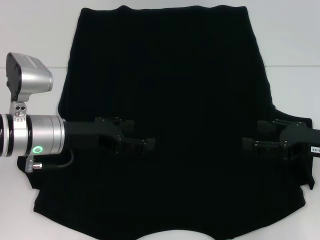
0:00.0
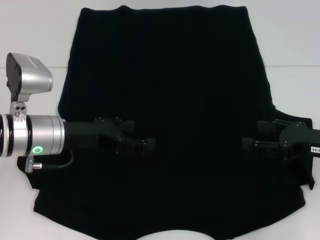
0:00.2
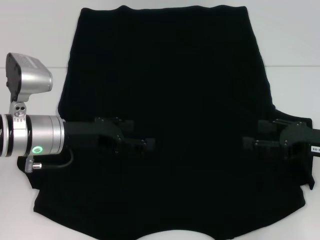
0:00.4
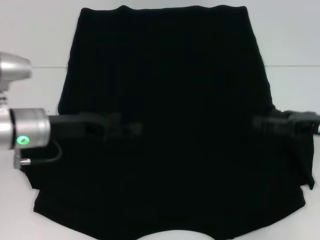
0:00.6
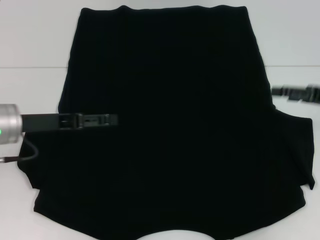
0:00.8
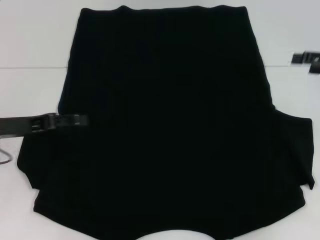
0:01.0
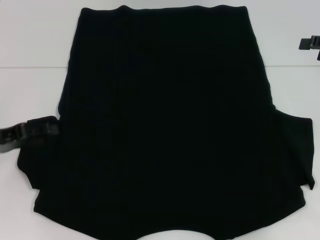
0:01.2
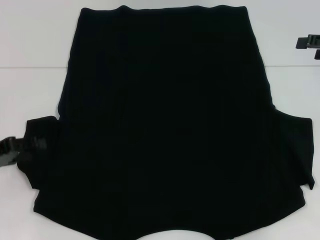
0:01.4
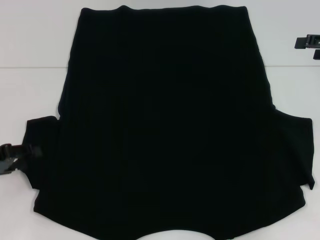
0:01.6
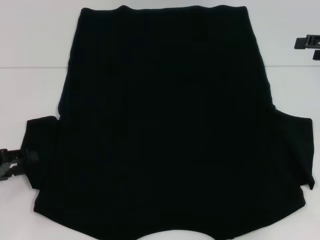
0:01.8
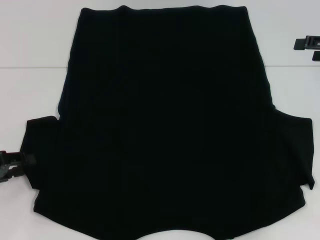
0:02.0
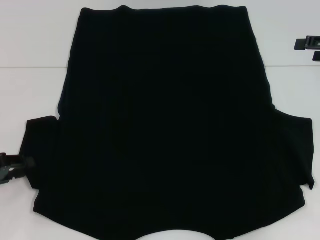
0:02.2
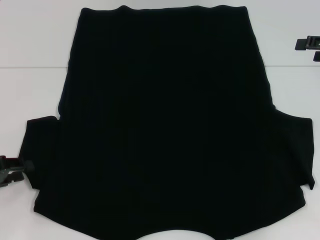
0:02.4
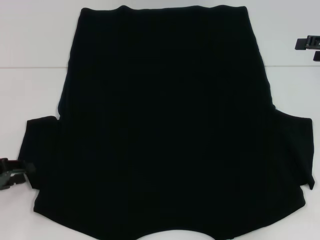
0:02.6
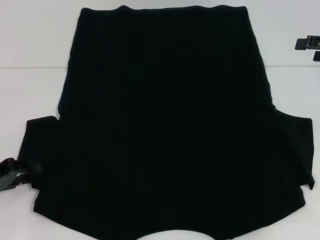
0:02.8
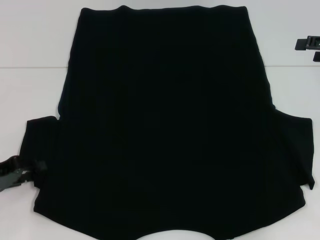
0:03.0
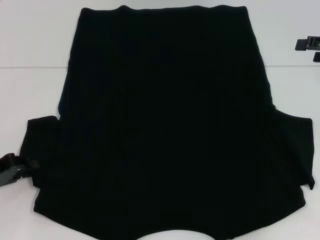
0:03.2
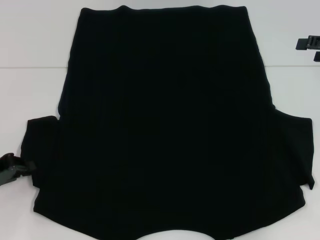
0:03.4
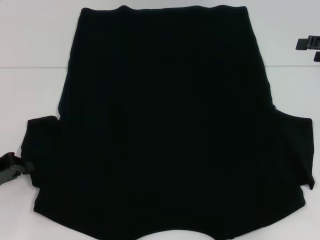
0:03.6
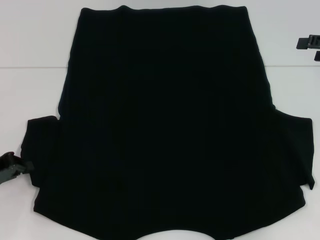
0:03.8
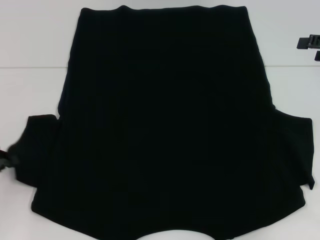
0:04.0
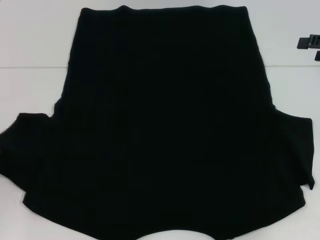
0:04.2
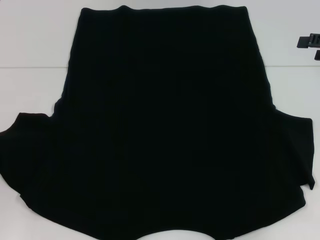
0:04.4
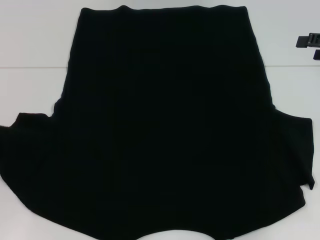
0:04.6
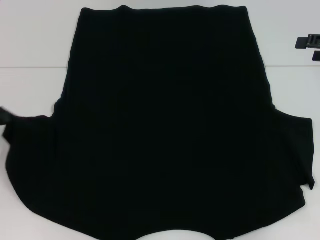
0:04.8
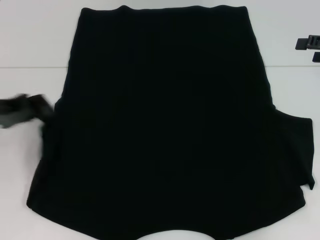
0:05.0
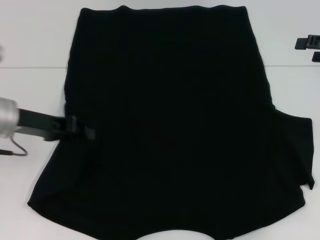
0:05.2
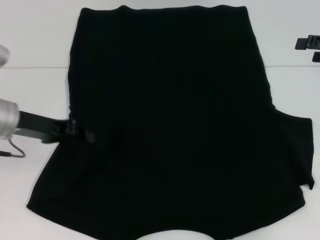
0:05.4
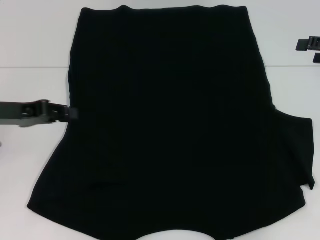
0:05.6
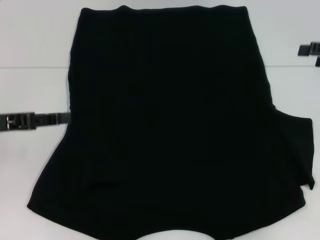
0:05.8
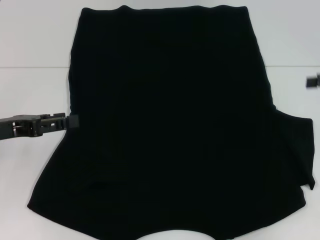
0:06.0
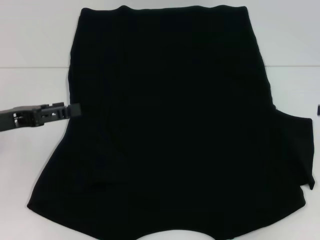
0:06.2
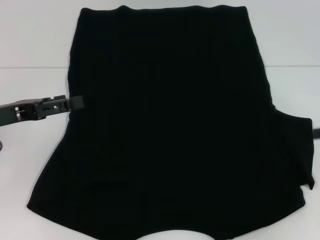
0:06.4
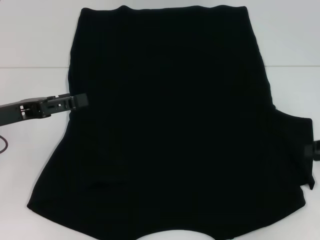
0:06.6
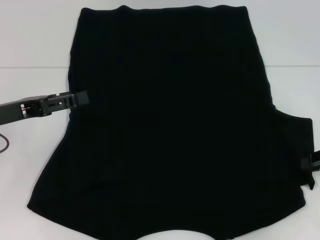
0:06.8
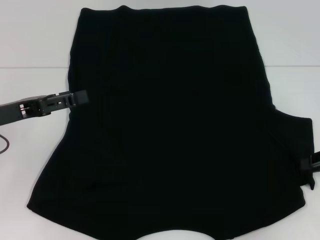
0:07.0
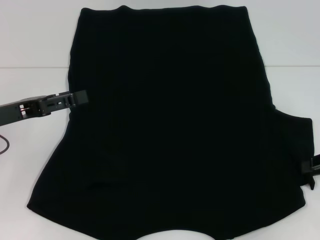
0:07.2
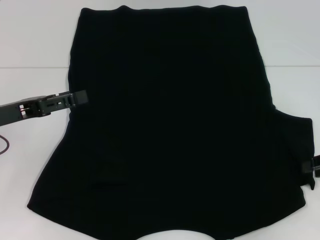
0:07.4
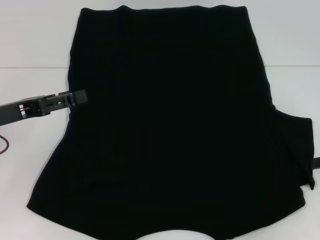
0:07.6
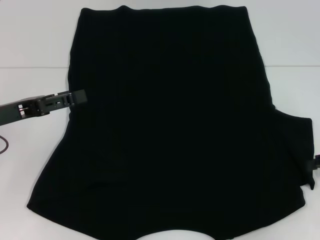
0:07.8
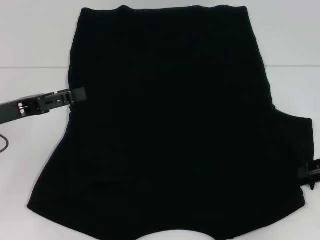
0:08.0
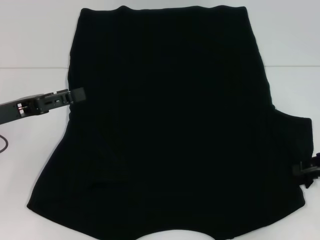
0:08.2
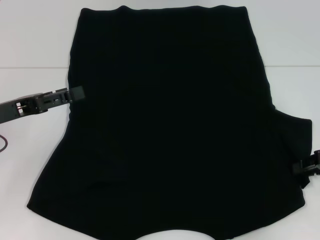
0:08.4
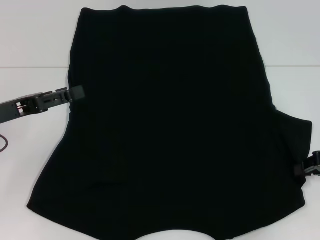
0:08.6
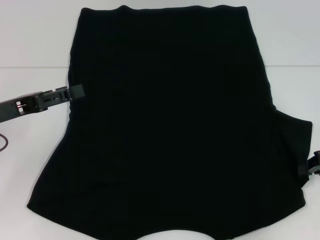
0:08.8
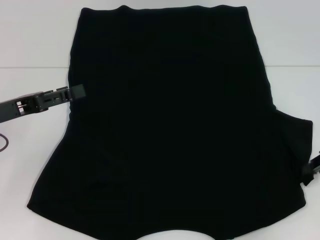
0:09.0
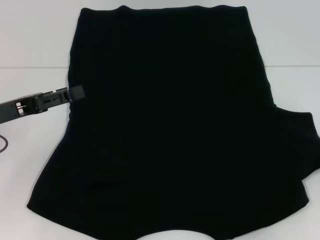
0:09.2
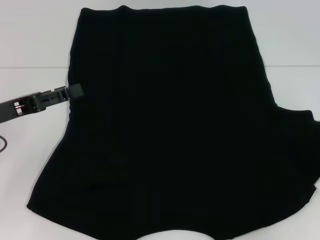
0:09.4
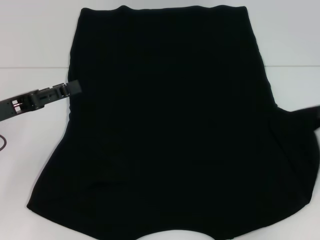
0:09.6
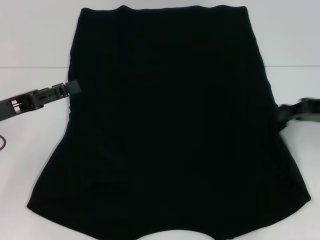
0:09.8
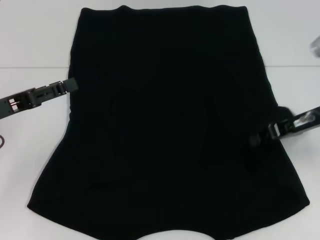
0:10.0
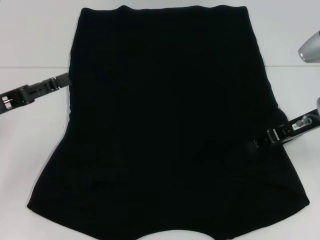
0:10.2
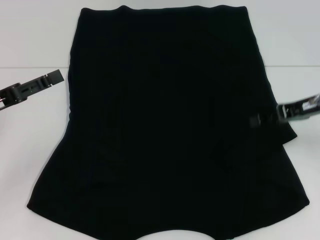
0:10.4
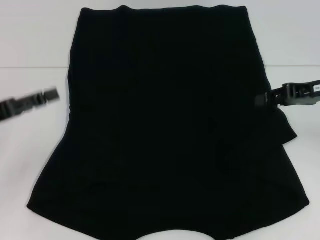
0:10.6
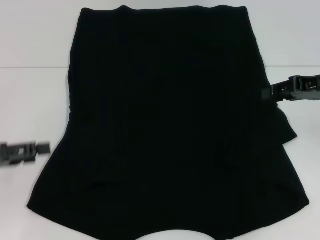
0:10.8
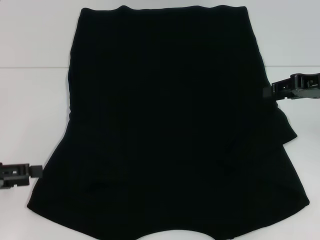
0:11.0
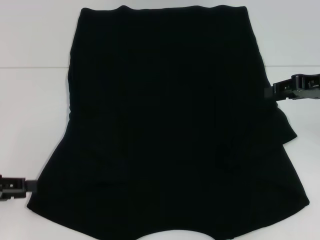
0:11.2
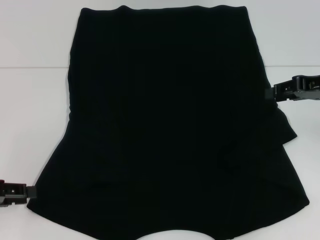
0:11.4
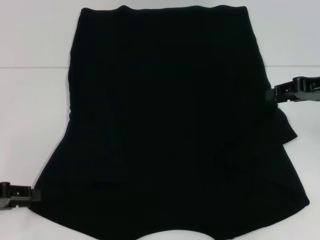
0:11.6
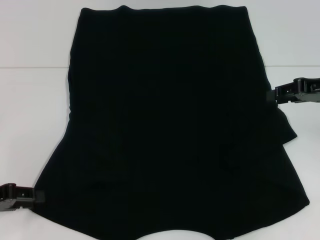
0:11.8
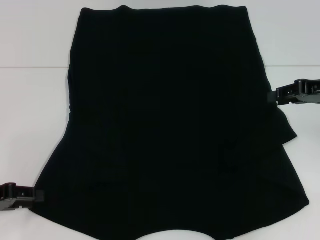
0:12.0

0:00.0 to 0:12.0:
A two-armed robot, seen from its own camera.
Step, 0:00.0 to 0:05.4: Fold the bottom left sleeve with your left hand.
Step, 0:05.6 to 0:10.2: Fold the bottom right sleeve with your right hand.
0:00.0 to 0:01.6: The left gripper heads to the left, covering some 15 cm; the right gripper travels upward, forward and to the right by some 15 cm.
0:01.6 to 0:03.0: The grippers stay close to where they were, moving slightly.
0:03.0 to 0:04.4: The left gripper travels to the left by about 5 cm, and closes up.
0:04.4 to 0:06.0: The left gripper goes some 10 cm to the right, and opens.
0:06.0 to 0:07.6: The right gripper travels downward and backward by roughly 10 cm, and closes; the left gripper opens up.
0:07.6 to 0:09.0: The right gripper closes up.
0:09.0 to 0:10.4: The right gripper shifts some 10 cm to the left, forward and upward.
0:10.4 to 0:12.0: The left gripper changes place by roughly 5 cm, and closes.

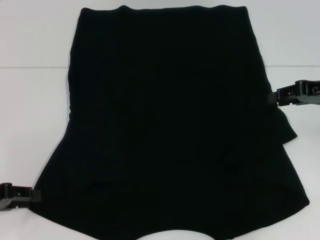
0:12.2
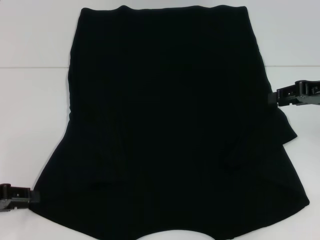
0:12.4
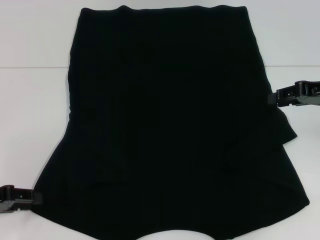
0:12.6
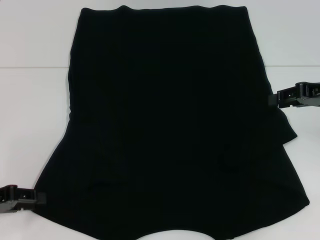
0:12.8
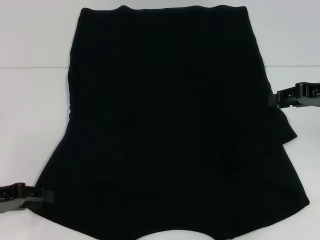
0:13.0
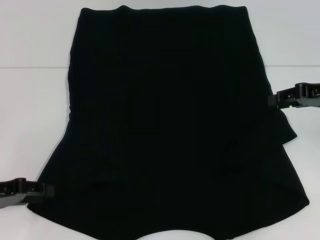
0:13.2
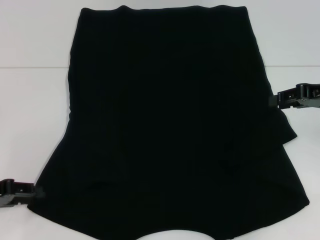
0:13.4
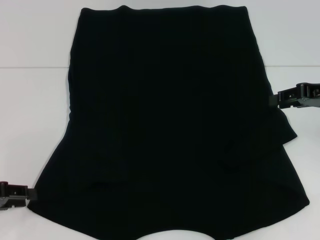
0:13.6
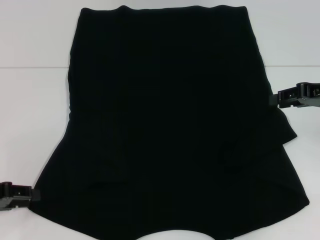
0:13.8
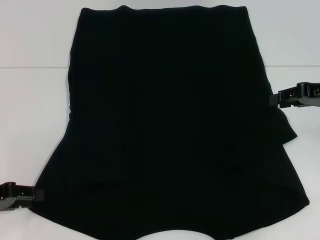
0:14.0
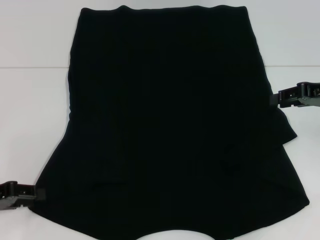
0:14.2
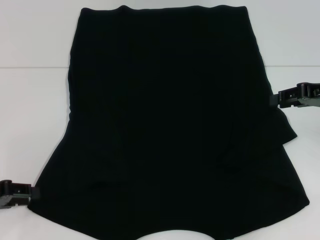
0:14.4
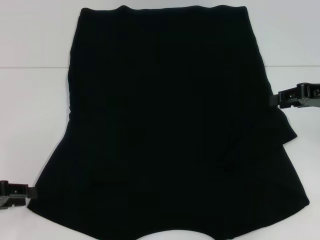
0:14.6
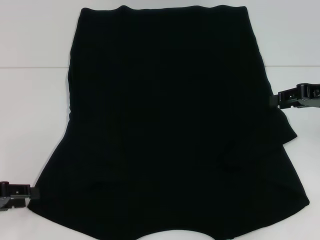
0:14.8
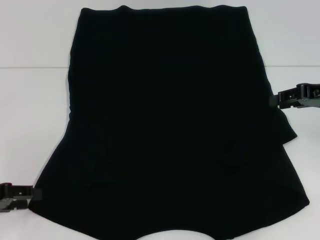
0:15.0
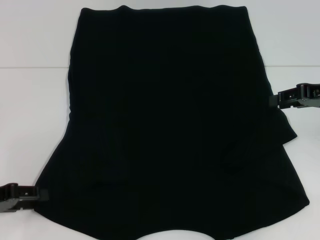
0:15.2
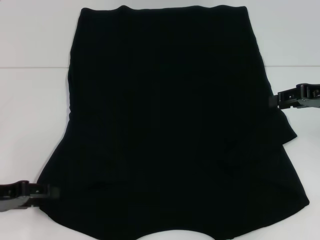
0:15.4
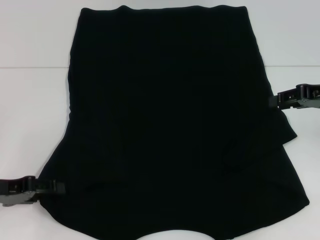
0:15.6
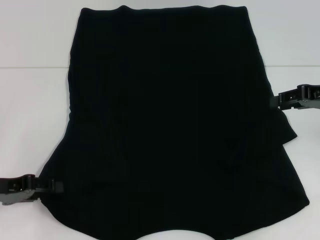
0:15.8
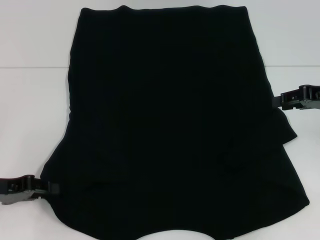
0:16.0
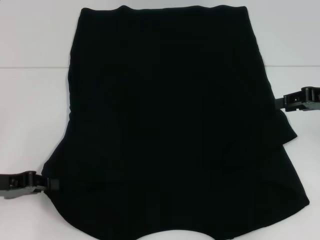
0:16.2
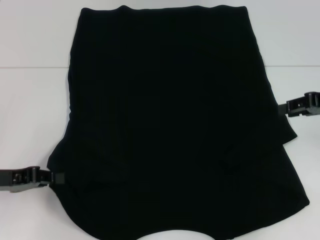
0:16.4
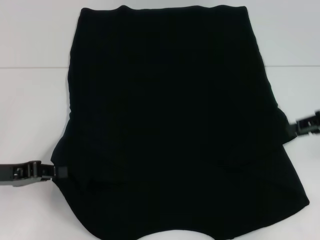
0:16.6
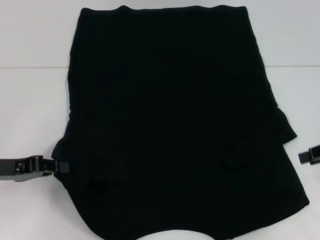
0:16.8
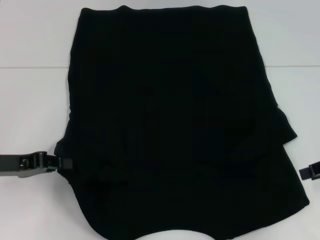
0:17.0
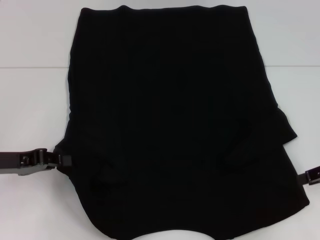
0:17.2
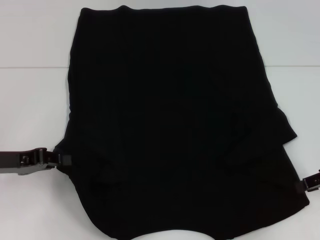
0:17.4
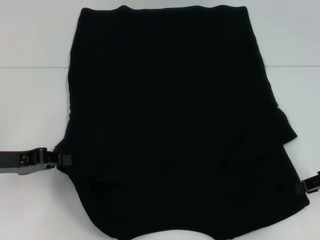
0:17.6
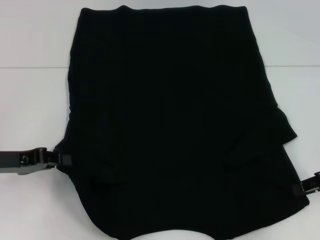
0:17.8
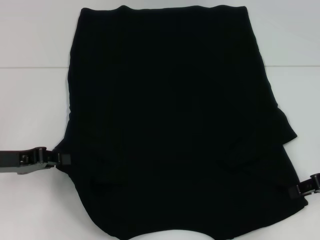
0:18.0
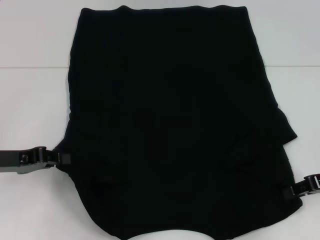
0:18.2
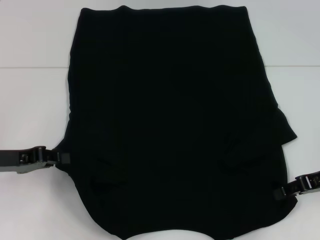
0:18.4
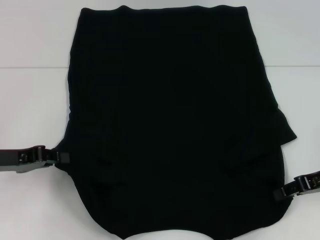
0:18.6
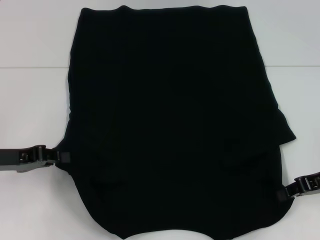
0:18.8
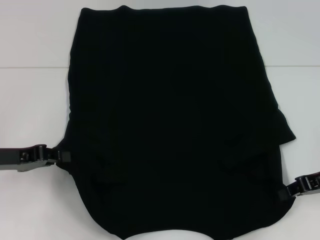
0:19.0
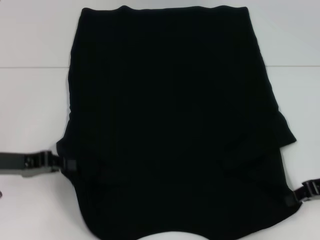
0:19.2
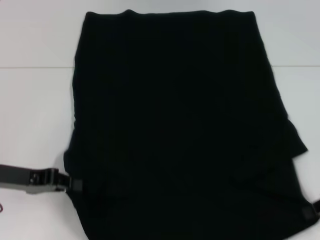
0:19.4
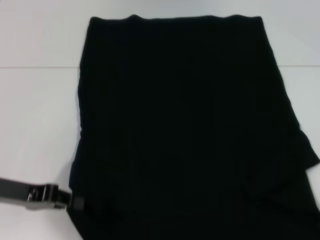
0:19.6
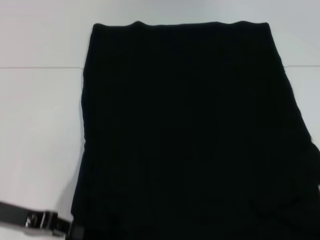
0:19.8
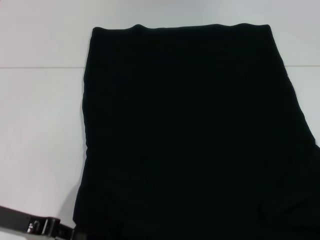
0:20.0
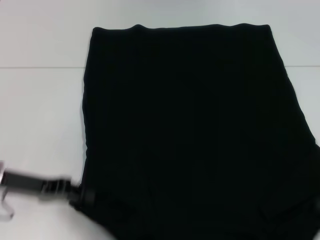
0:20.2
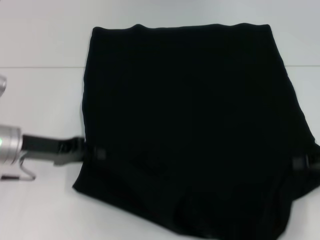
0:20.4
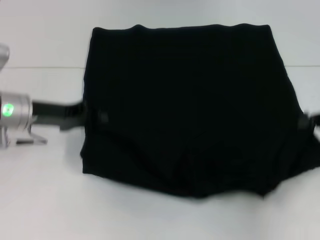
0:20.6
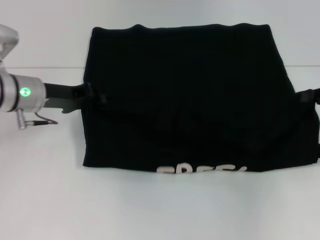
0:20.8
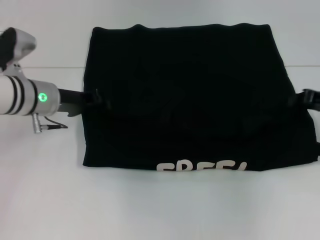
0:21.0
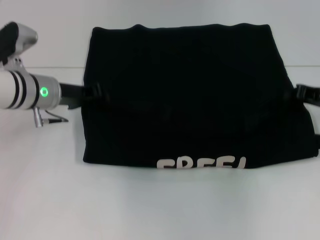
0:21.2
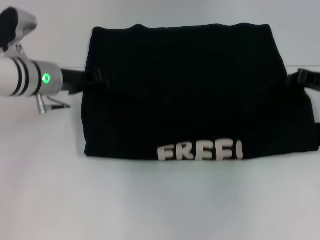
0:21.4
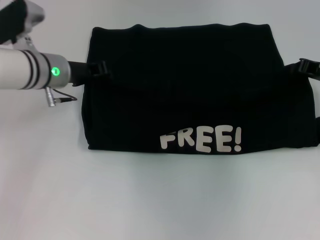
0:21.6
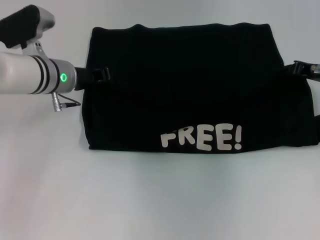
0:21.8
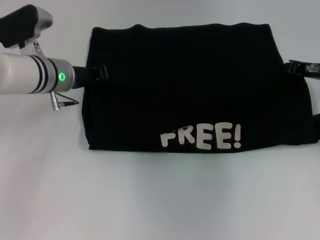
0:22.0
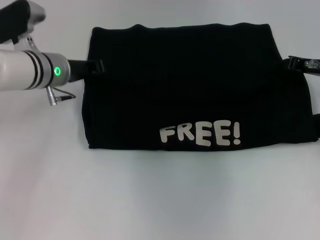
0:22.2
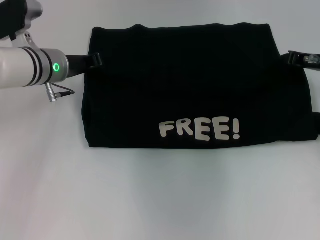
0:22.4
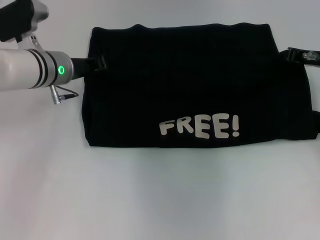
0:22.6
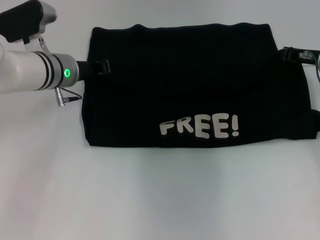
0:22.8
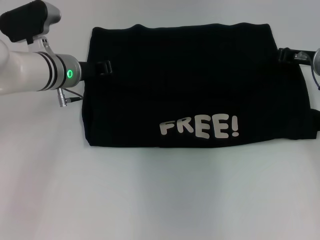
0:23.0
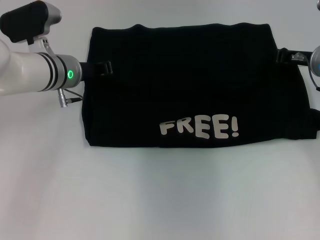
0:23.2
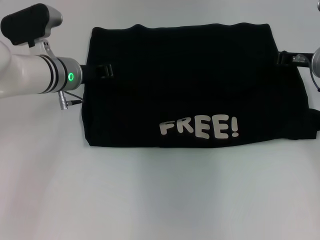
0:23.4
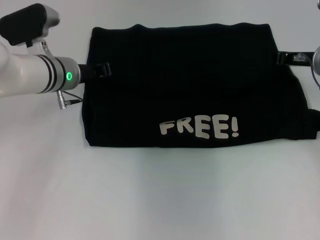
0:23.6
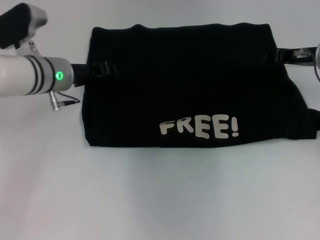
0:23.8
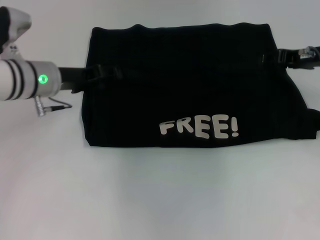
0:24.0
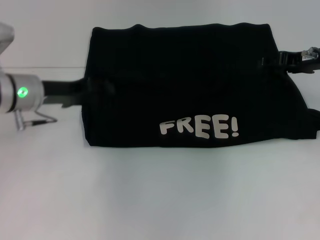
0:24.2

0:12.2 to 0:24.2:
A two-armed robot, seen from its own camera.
Step, 0:12.2 to 0:16.6: Grab the bottom left corner with your left hand.
Step, 0:16.8 to 0:19.0: Grab the bottom right corner with your right hand.
Step, 0:19.2 to 0:23.8: Fold the clothes with your left hand.
Step, 0:19.2 to 0:23.8: Fold the clothes with your right hand.
0:13.8 to 0:15.2: Both grippers stay put.
0:15.2 to 0:16.6: The left gripper closes up.
0:16.6 to 0:18.2: The right gripper heads downward, covering about 5 cm.
0:18.2 to 0:19.8: The right gripper shifts approximately 10 cm backward.
0:19.8 to 0:21.2: The right gripper heads forward, covering some 15 cm. The left gripper goes roughly 15 cm forward and to the right.
0:21.2 to 0:22.6: The right gripper changes place by about 5 cm.
0:22.6 to 0:24.2: The left gripper changes place by approximately 5 cm, and opens. The right gripper opens.
